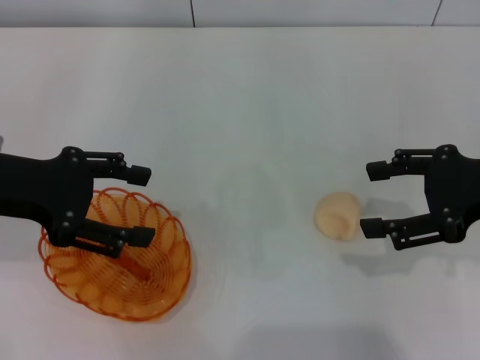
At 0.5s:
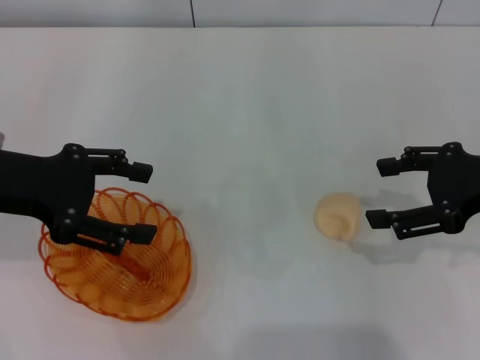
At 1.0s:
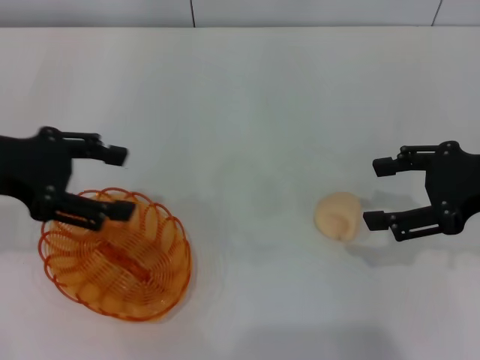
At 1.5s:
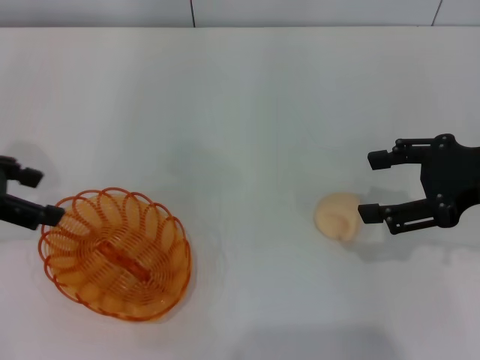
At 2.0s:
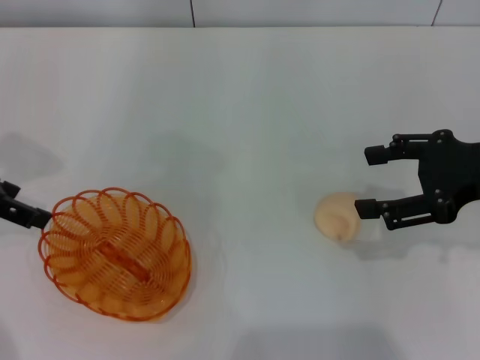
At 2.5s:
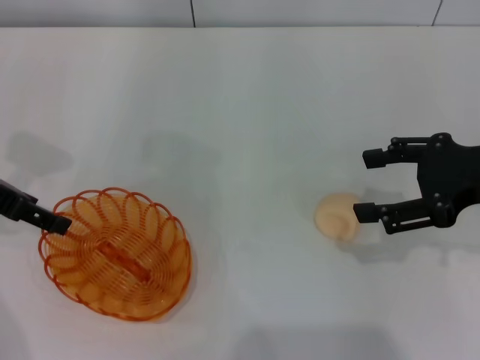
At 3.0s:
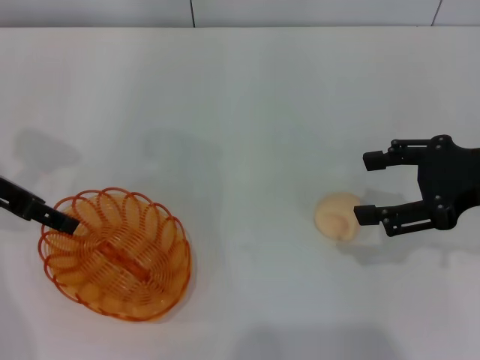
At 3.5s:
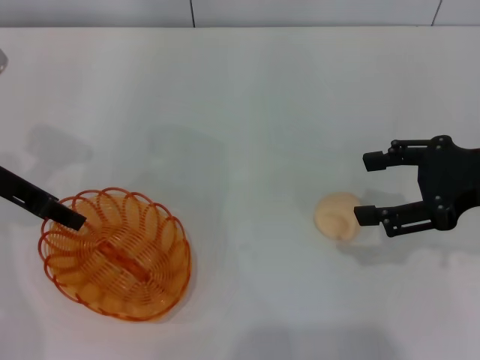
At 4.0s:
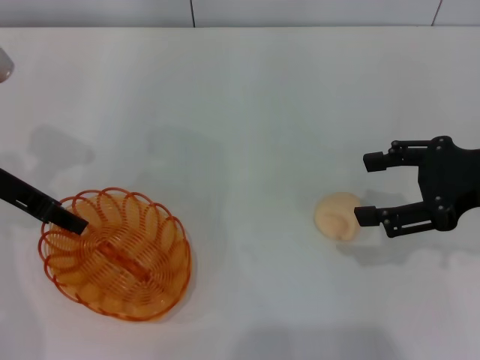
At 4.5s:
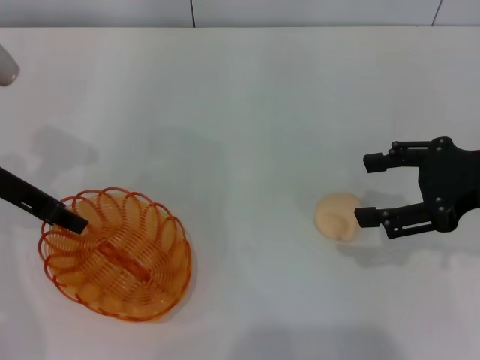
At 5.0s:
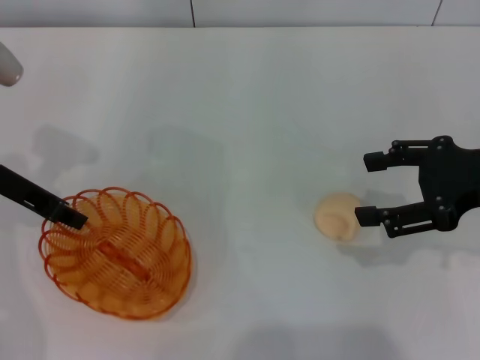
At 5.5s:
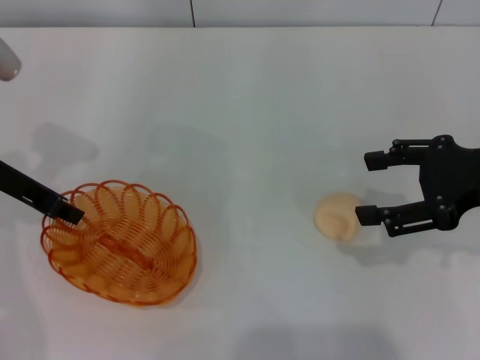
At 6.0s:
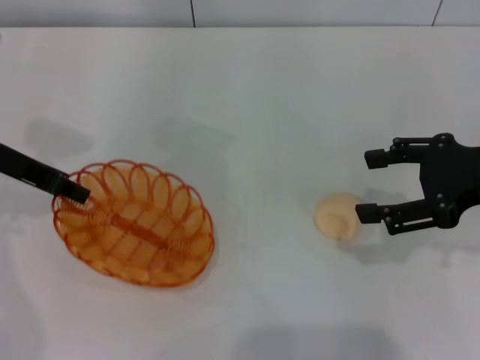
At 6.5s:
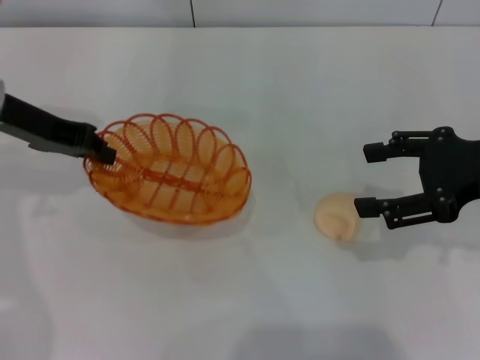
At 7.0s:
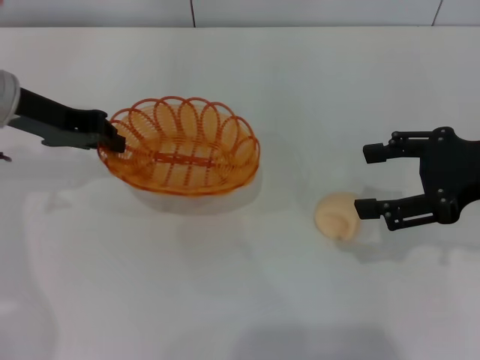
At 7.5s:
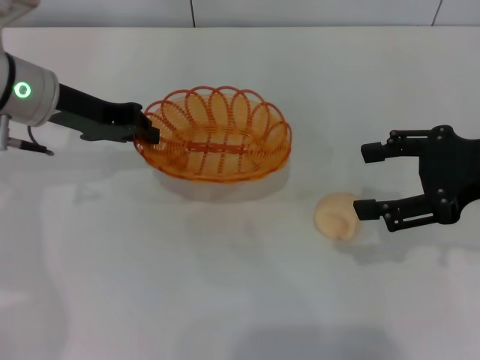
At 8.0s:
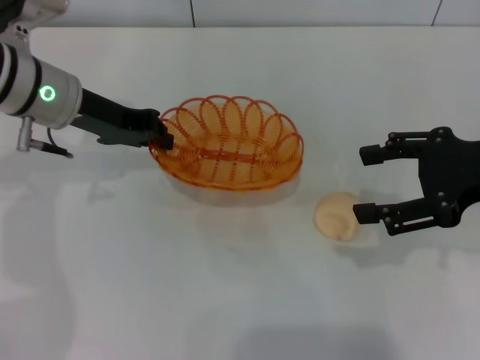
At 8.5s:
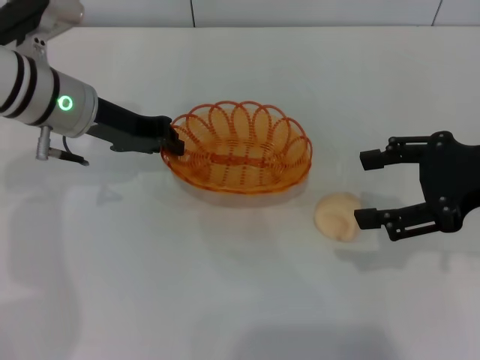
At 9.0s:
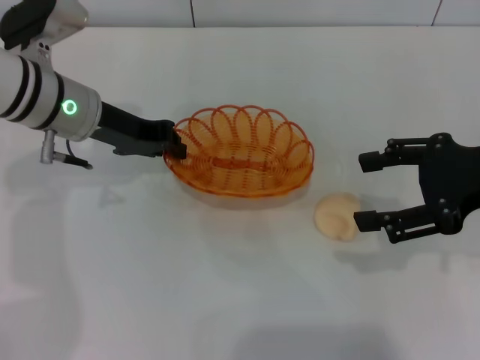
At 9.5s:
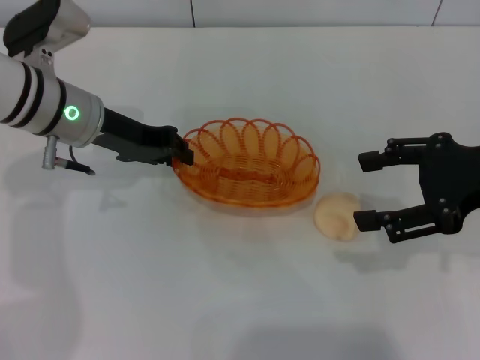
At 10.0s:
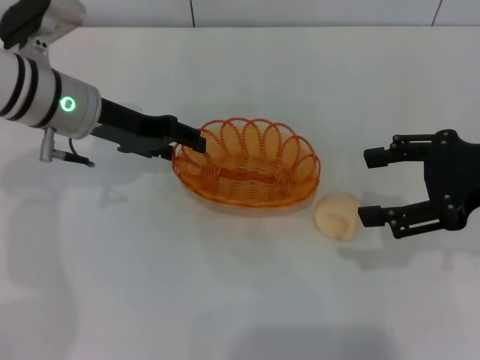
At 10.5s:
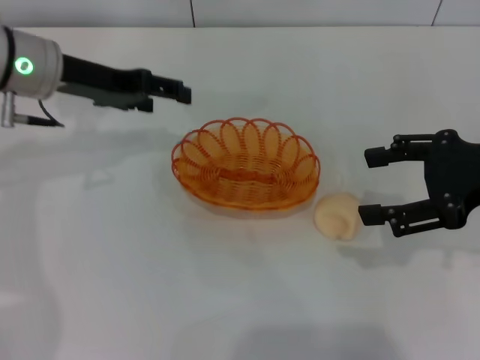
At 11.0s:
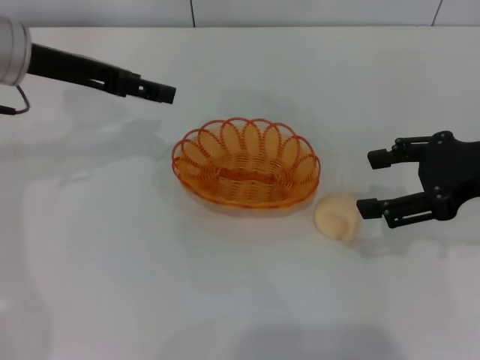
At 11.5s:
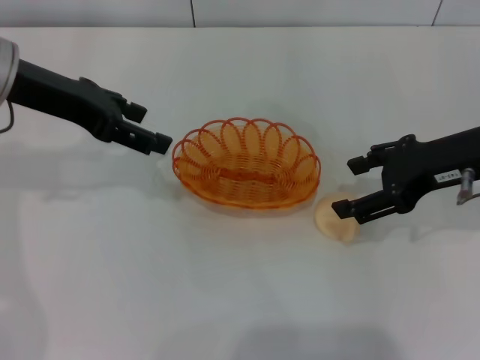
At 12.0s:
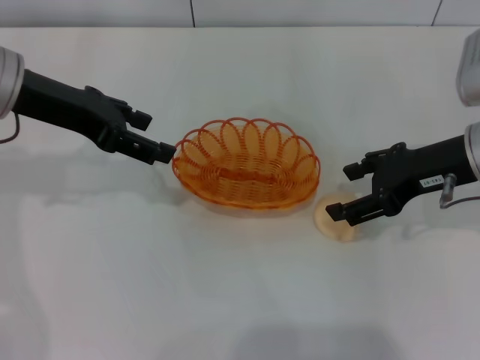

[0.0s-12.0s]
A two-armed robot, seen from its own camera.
Step, 0.0s to 7.0s: Pick up the basket with the left gripper.
Step, 7.5s to 10.0s: Place the basket in the center of view with the left gripper.
0.0s to 2.0s: The left gripper moves some 5 cm.
2.0s to 4.0s: The left gripper changes place by roughly 5 cm, and closes up.
4.0s to 6.0s: The left gripper closes.
6.0s to 8.0s: The left gripper heads to the right, covering about 5 cm.
8.0s to 10.0s: The left gripper opens.
10.0s to 12.0s: The left gripper moves upward, approximately 5 cm, and opens its fingers. Meanwhile the right gripper shifts roughly 5 cm forward.

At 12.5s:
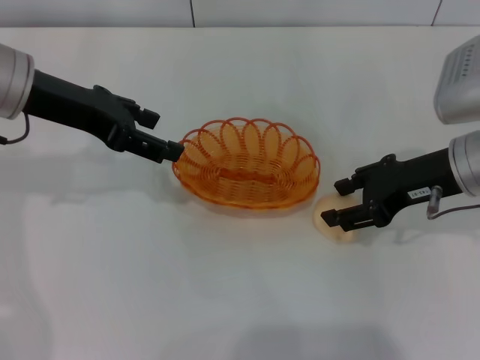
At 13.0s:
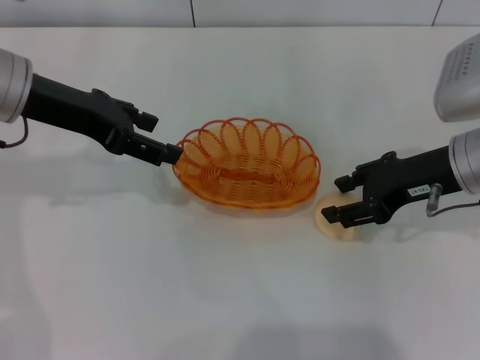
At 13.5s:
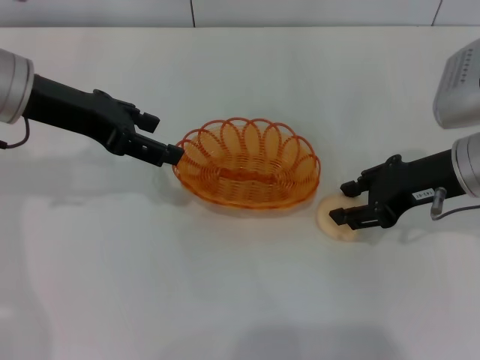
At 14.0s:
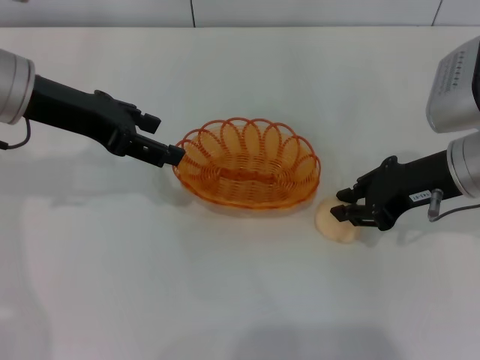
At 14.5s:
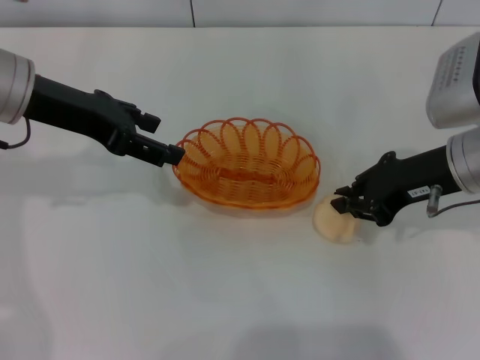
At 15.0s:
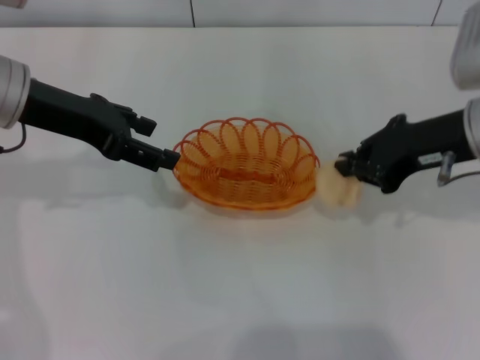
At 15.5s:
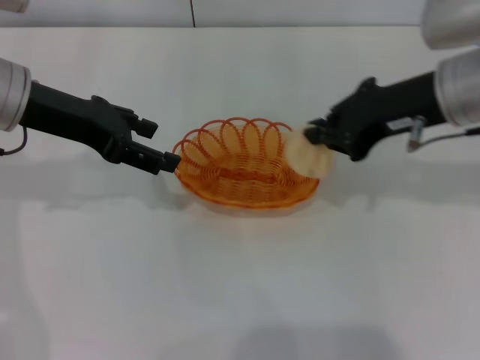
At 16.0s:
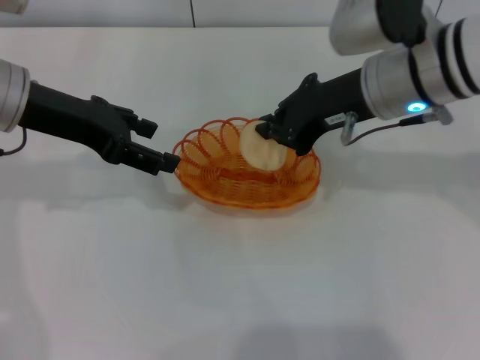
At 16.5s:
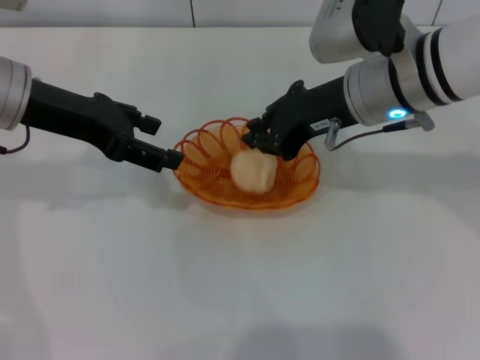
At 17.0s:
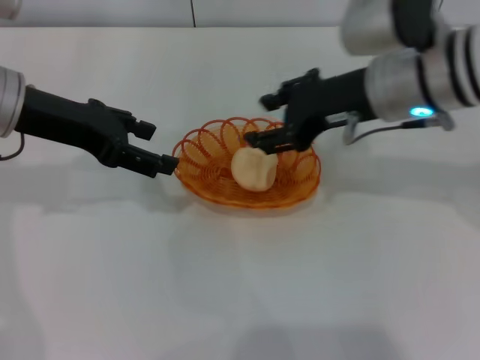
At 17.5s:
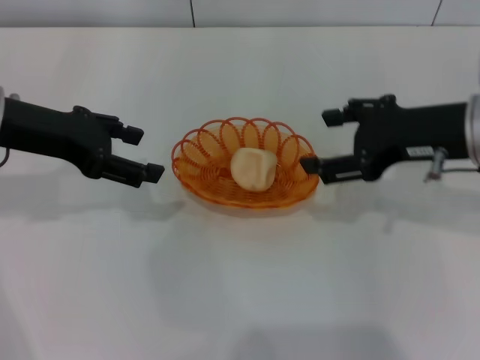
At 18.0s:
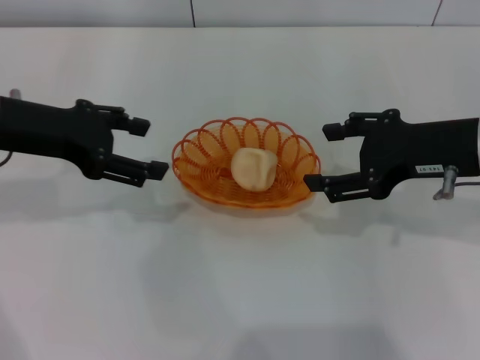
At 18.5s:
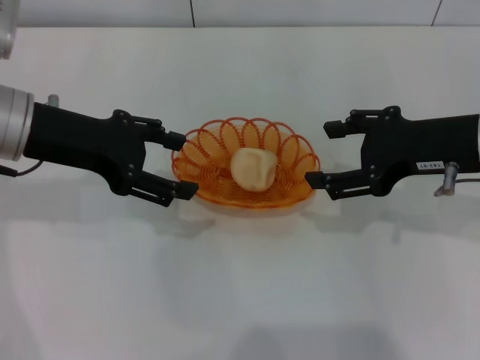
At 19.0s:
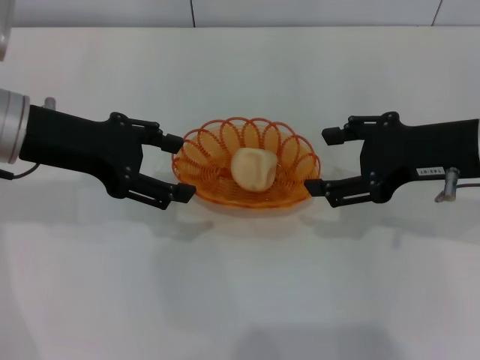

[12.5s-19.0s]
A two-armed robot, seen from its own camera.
Step, 12.5s to 15.0s: Pick up the egg yolk pastry with the right gripper.
Step, 15.5s to 17.0s: Place the egg yolk pastry into the basket with the right gripper.
12.5s to 14.5s: The right gripper closes up.
14.5s to 17.0s: The right gripper goes some 10 cm to the left and upward, and opens its fingers.
17.0s to 19.0s: The right gripper shifts about 10 cm to the right and backward, and opens its fingers.
